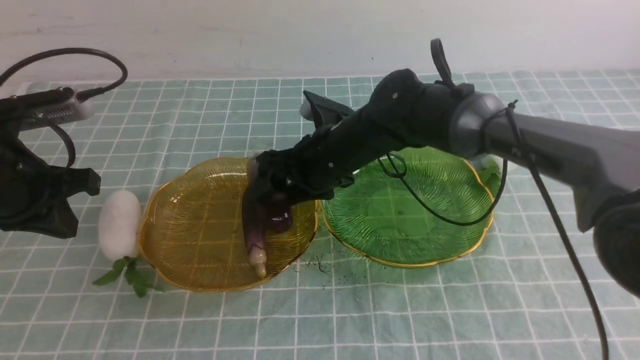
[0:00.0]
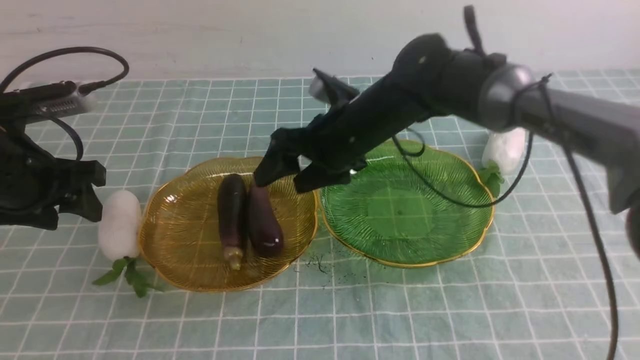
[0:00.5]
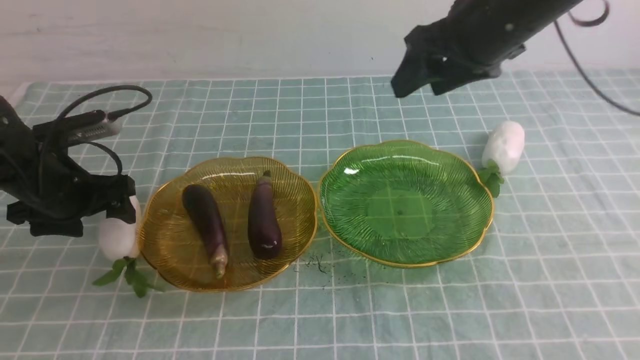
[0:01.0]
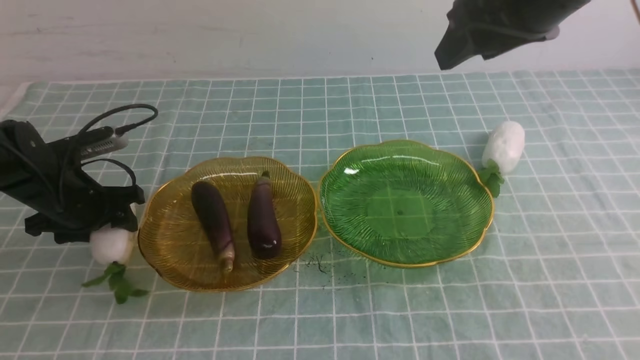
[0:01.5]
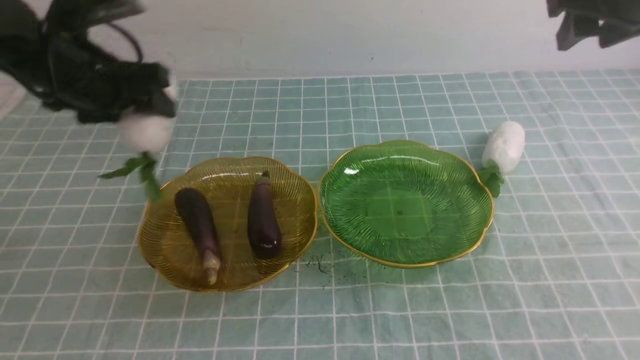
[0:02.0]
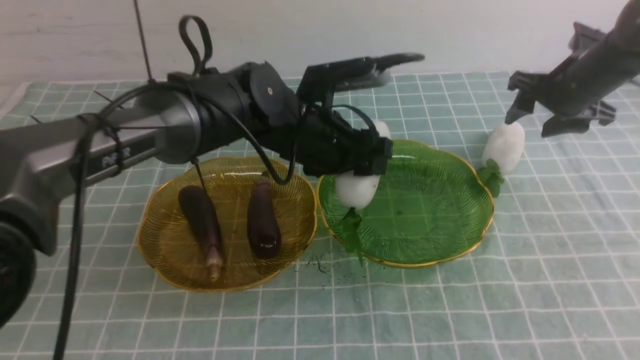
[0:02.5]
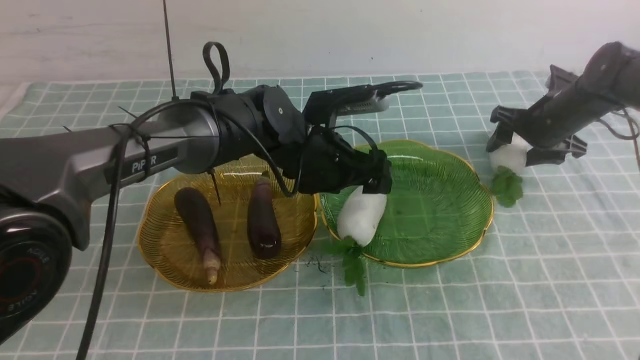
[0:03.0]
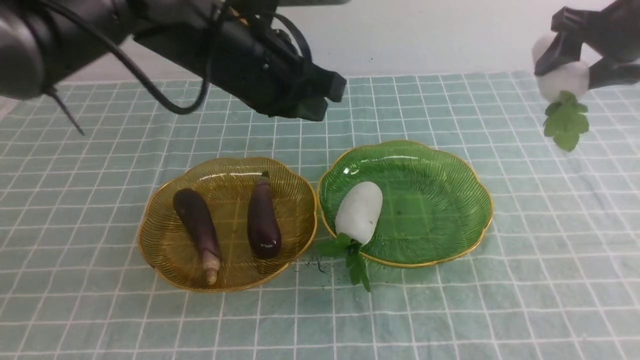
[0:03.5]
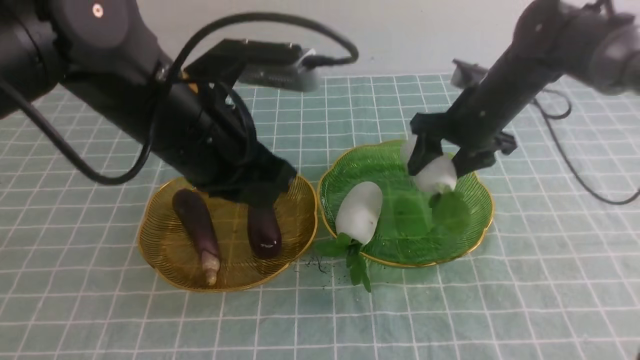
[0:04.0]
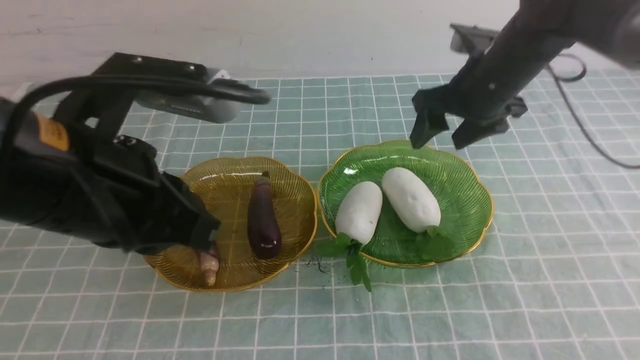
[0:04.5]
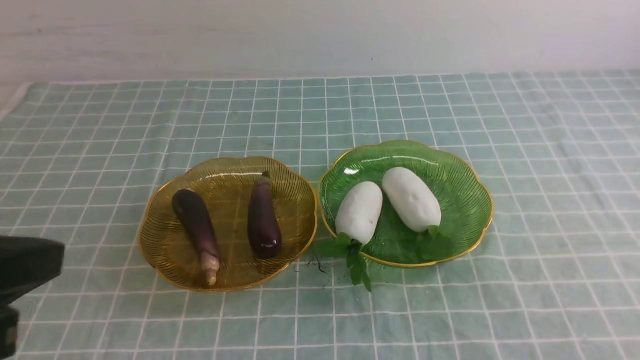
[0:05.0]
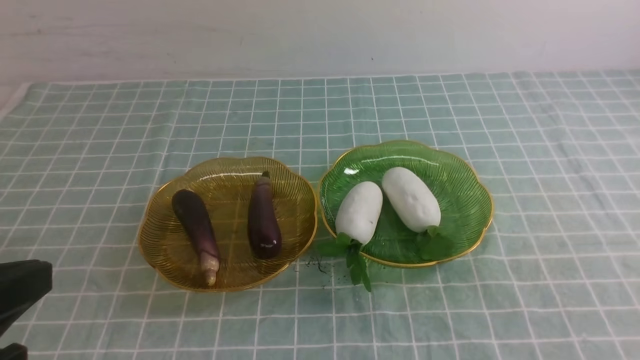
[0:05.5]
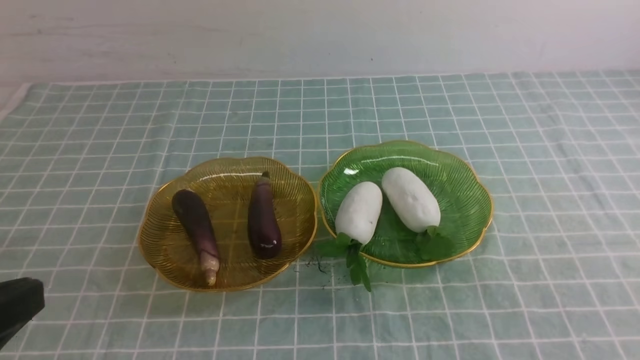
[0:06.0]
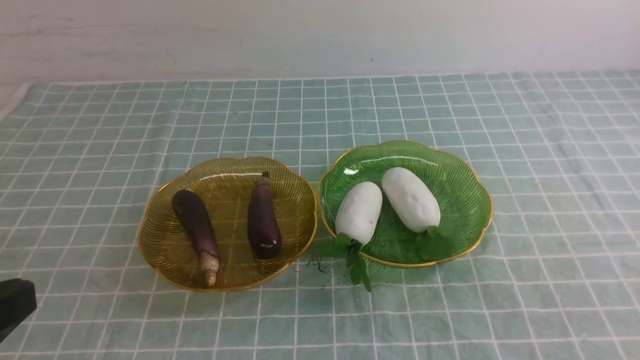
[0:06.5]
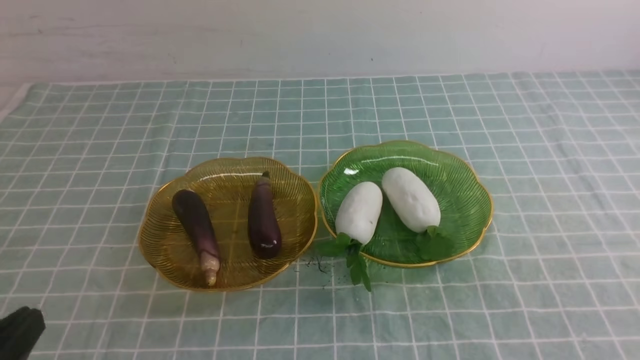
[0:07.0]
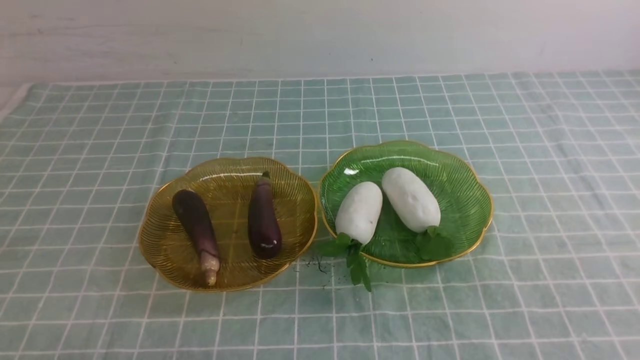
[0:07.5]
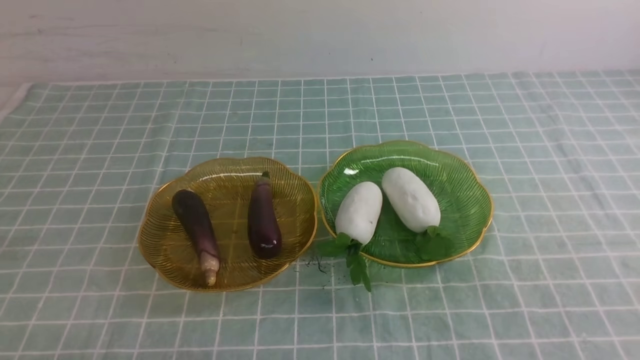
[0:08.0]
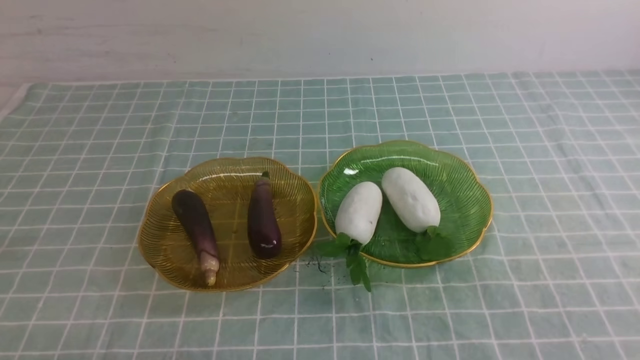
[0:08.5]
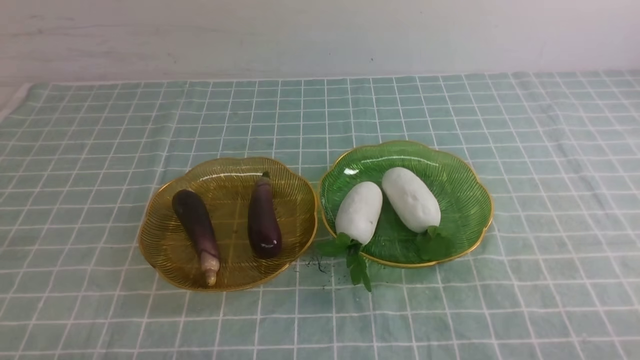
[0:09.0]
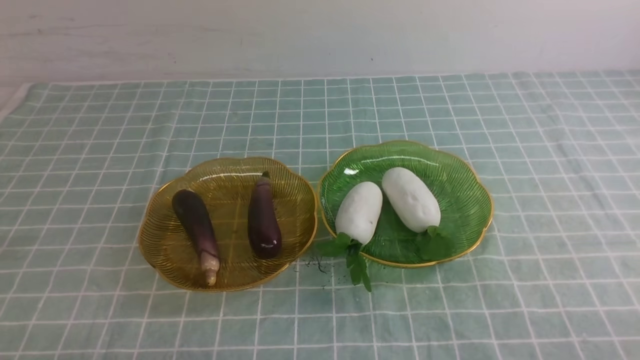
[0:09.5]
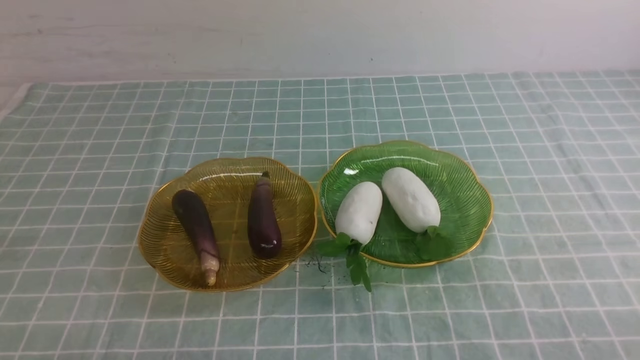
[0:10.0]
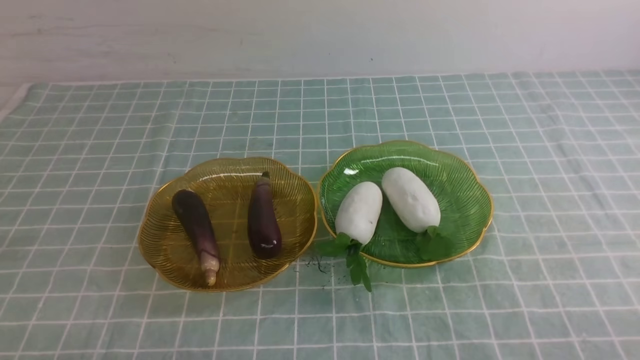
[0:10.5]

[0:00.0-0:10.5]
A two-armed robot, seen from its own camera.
Step, 0:00.5 to 0:02.5: use the left arm to grab a radish and put it into the right plate.
Step, 0:03.5 to 0:04.0: use the right arm to grab a radish and put it into the right plate.
0:00.0 to 0:02.0: The left gripper goes about 15 cm forward and to the right, goes downward and returns, roughly 10 cm each way, and opens its fingers; the right gripper moves to the right and upward, approximately 30 cm.
0:02.0 to 0:04.0: The right gripper swings up and down, roughly 20 cm each way, with 2 reversals. Meanwhile the left gripper moves backward and to the right, some 15 cm, and closes up.
0:04.0 to 0:06.5: The right gripper shifts about 40 cm backward, and closes up, while the left gripper travels backward and to the left by about 25 cm.
0:06.5 to 0:08.5: The left gripper goes some 15 cm downward.
